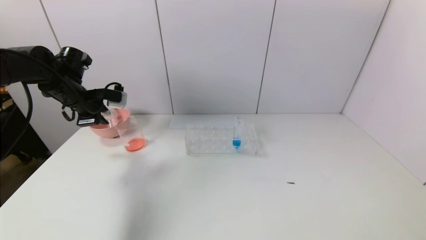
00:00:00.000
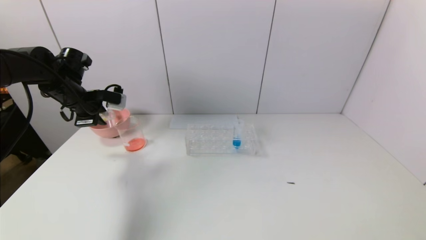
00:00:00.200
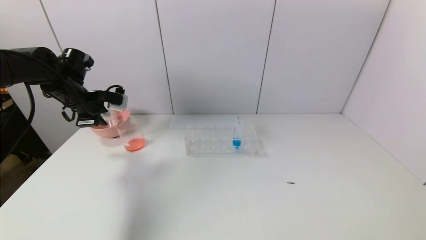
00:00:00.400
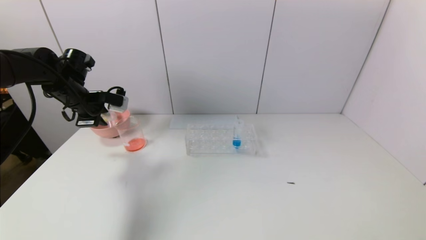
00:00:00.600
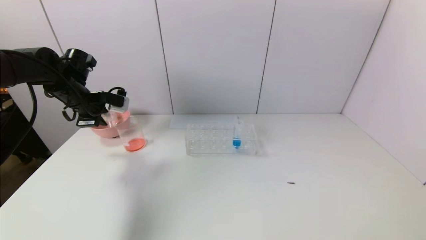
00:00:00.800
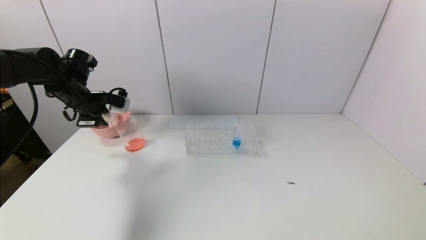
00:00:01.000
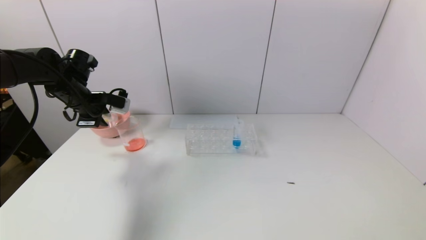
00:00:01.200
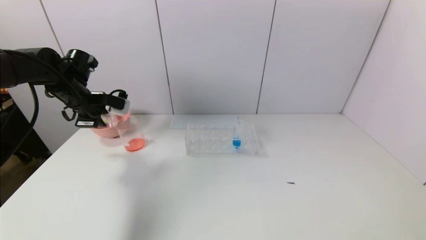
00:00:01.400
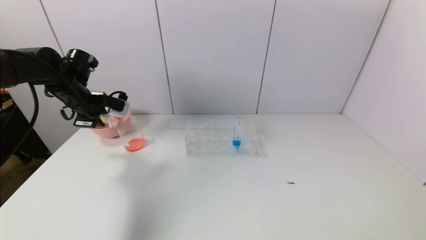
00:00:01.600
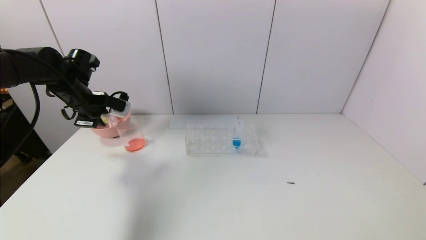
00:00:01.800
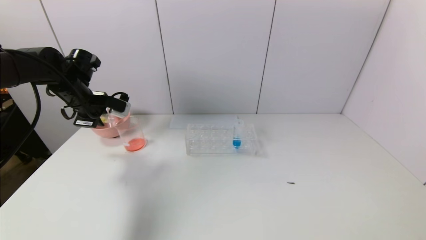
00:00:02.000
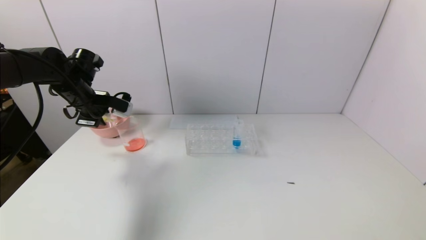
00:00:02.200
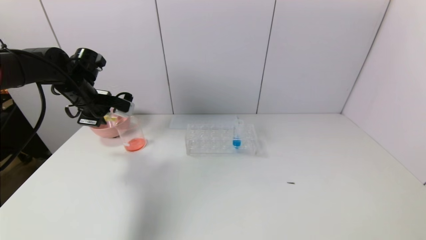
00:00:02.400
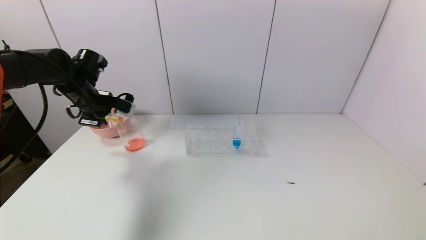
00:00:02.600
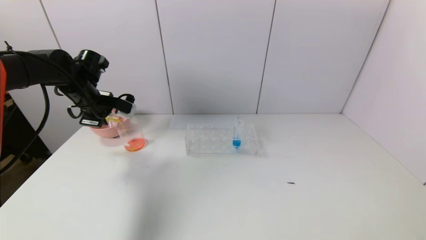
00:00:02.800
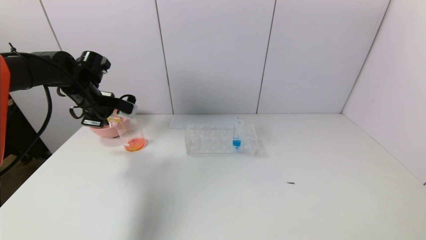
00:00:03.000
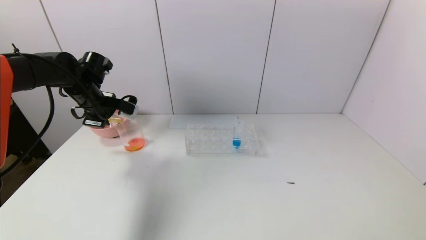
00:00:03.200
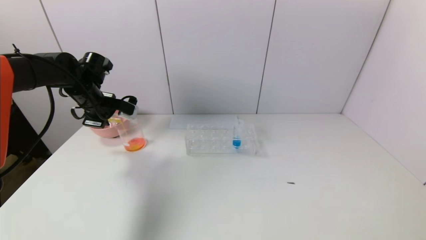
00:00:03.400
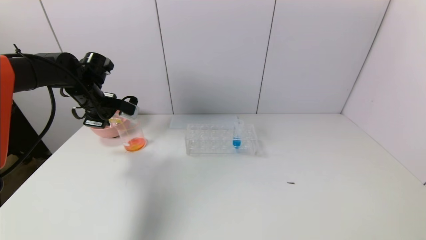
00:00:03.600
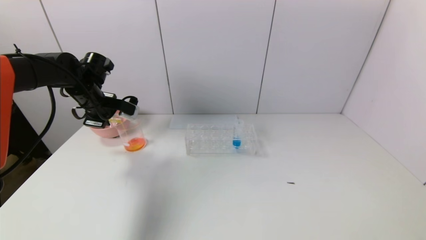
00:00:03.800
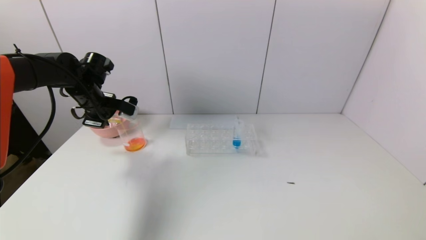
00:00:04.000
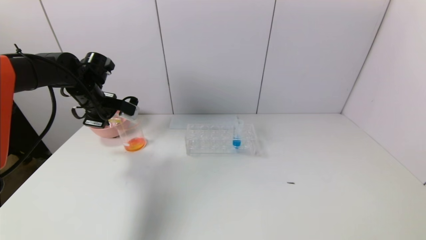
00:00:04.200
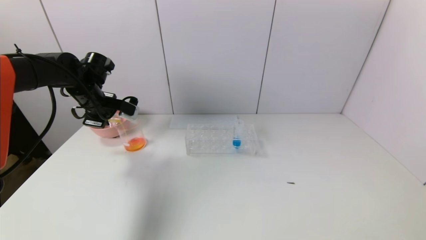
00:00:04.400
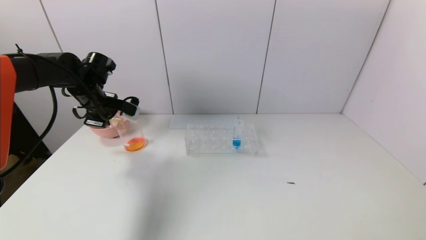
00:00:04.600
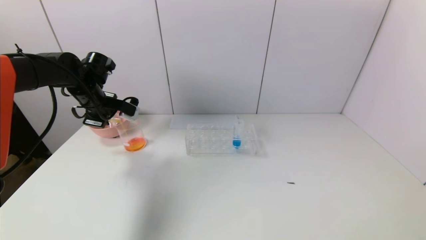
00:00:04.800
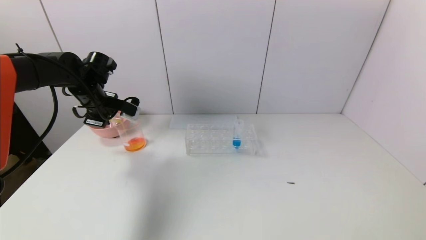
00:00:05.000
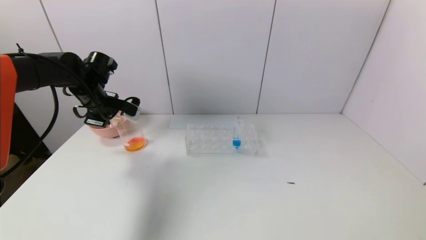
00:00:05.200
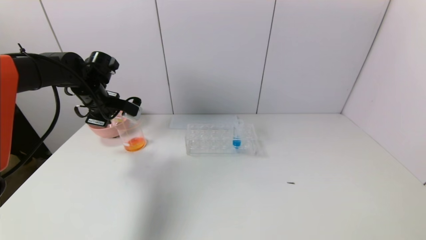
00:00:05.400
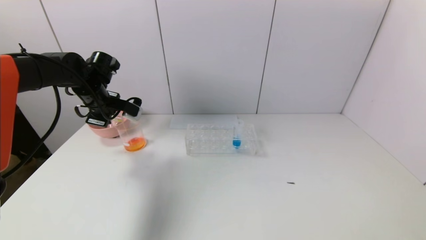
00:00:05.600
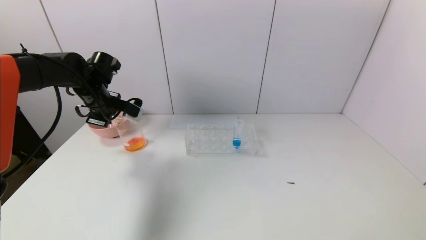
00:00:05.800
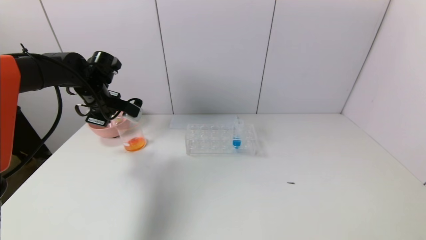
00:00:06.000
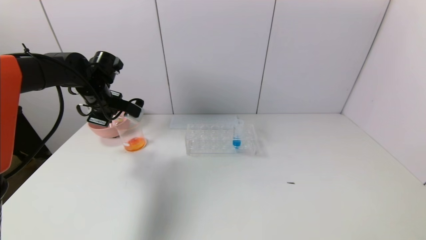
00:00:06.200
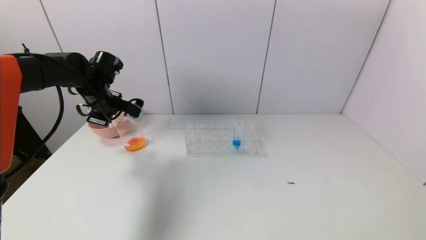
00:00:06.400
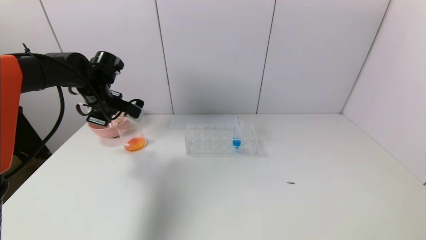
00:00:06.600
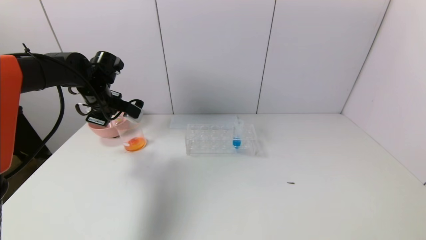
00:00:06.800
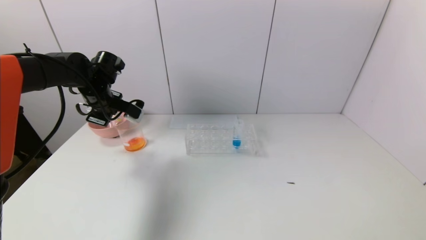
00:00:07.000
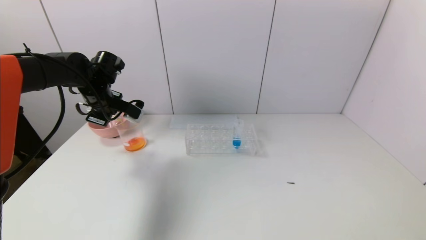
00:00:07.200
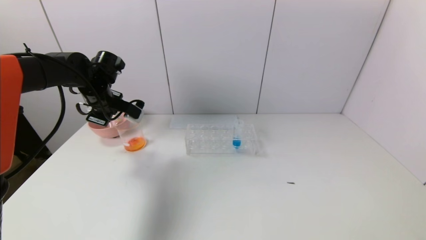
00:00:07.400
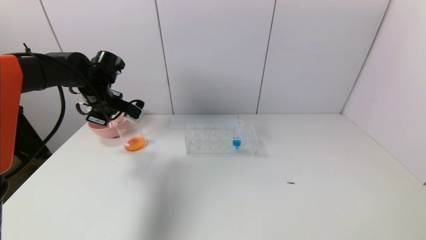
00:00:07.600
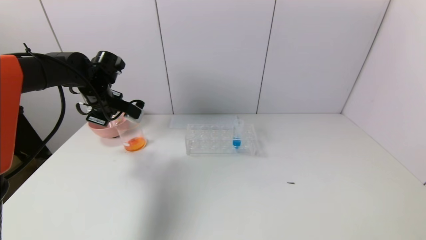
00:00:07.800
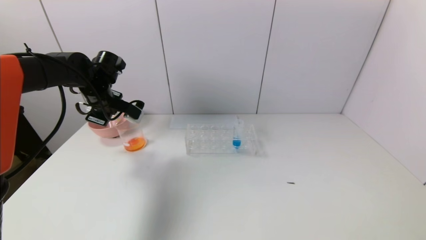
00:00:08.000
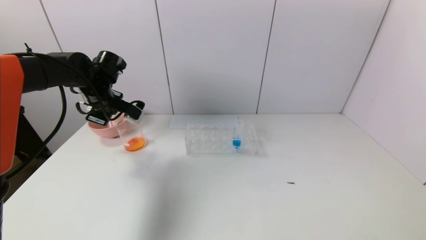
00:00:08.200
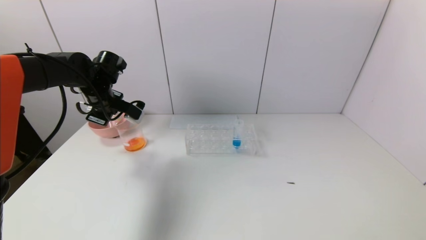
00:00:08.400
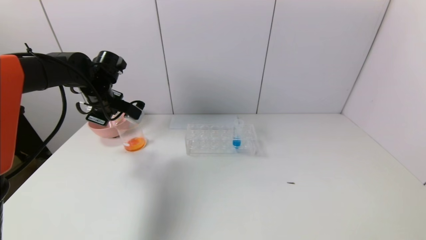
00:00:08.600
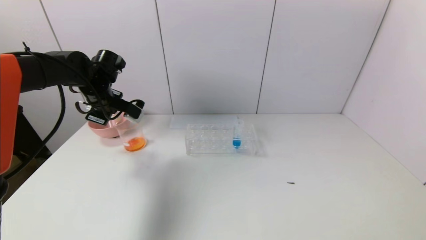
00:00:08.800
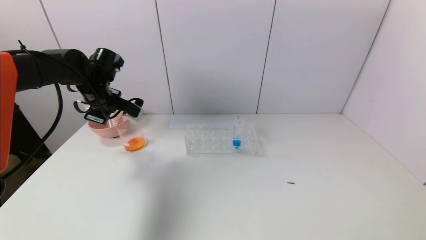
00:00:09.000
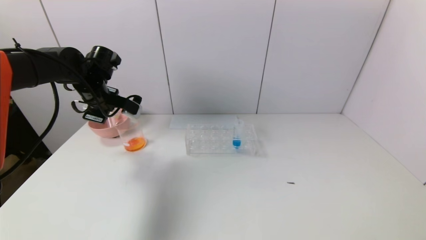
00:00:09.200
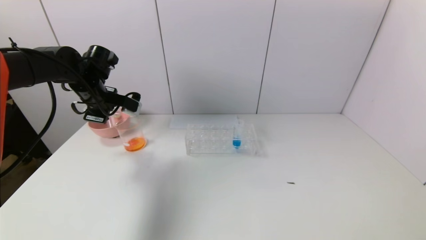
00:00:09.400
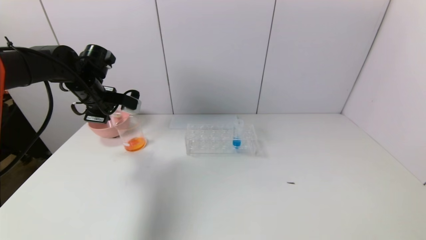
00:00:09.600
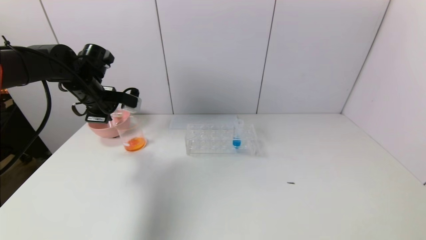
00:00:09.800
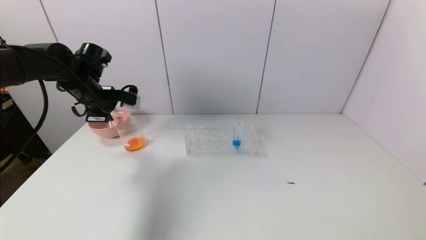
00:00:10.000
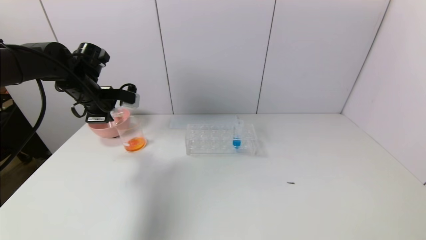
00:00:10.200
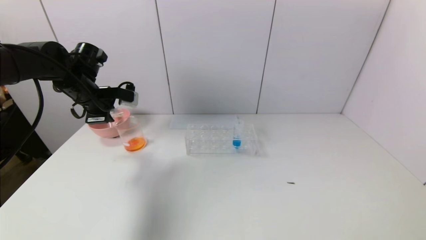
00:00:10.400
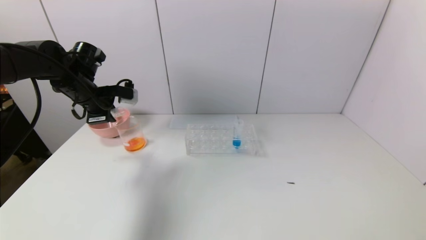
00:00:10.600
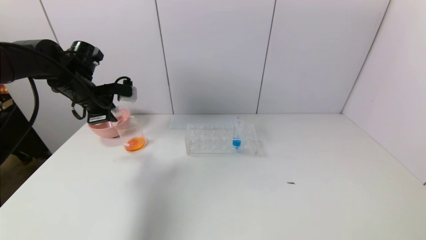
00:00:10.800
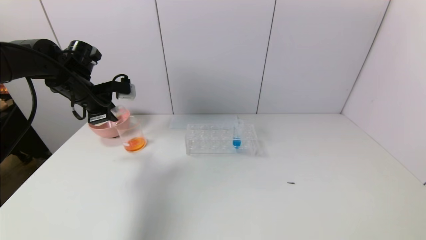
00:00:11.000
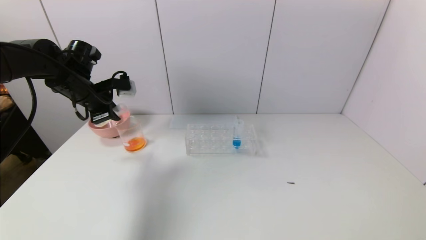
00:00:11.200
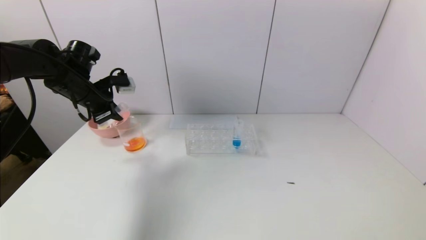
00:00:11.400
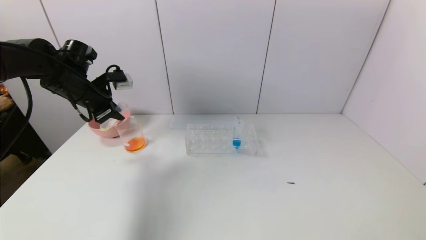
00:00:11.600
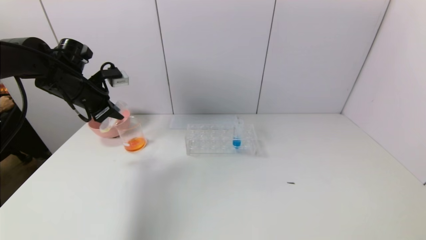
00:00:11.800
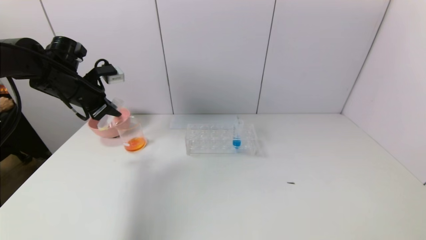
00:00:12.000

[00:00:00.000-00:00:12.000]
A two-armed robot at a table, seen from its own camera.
Task of the whole recording: pick up the test tube with yellow pigment and the test tube with red pigment by grippers and pour them into the beaker.
Step, 00:00:00.000 to 00:00:09.200: Pour the yellow reagent into the graduated cylinder with the left gripper.
00:00:00.000 to 00:00:03.000: The grippers stay close to where they were, moving slightly.
00:00:03.000 to 00:00:04.400: Both grippers stay about where they are.
00:00:04.400 to 00:00:06.000: The grippers move only a little.
00:00:06.000 to 00:00:07.600: The two grippers keep their place.
00:00:07.600 to 00:00:09.000: Neither gripper changes place.

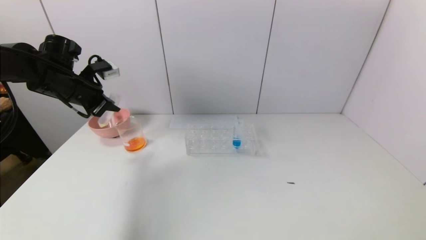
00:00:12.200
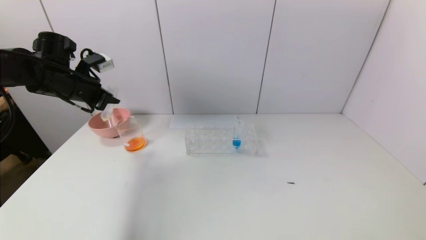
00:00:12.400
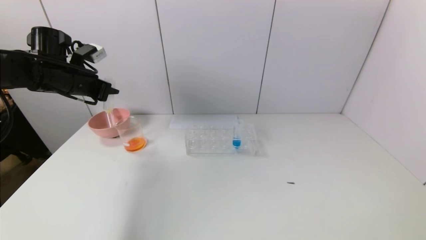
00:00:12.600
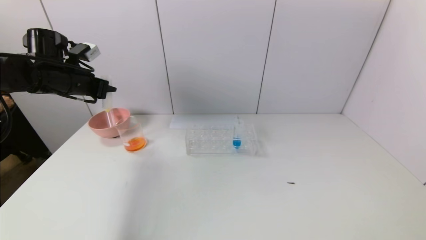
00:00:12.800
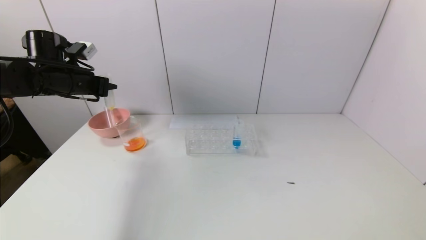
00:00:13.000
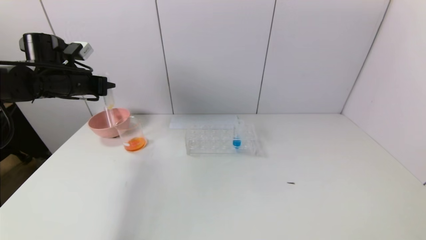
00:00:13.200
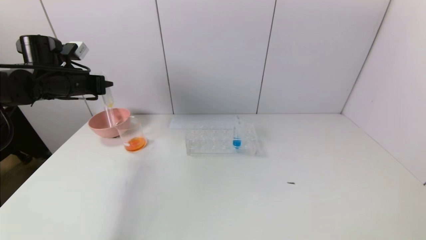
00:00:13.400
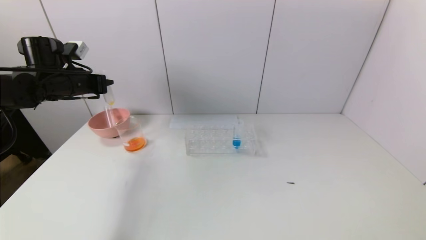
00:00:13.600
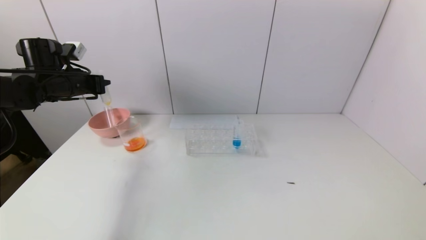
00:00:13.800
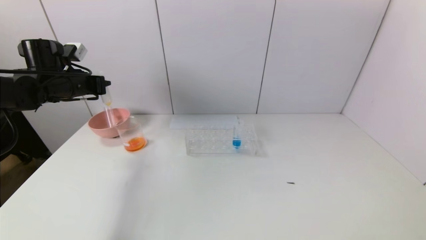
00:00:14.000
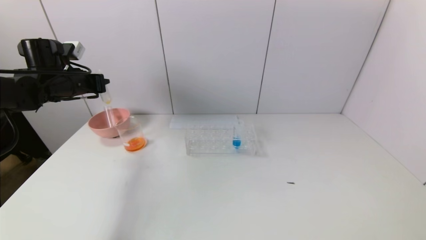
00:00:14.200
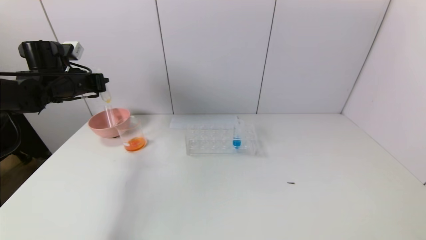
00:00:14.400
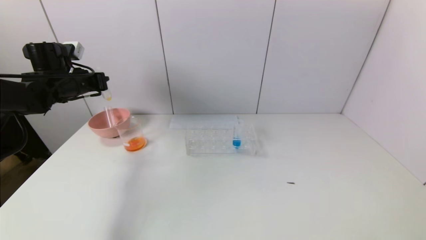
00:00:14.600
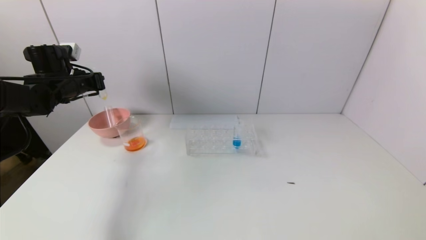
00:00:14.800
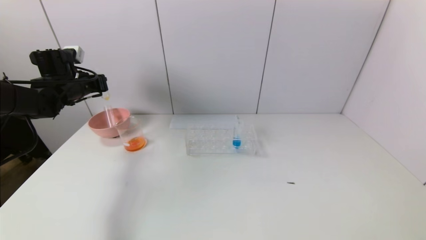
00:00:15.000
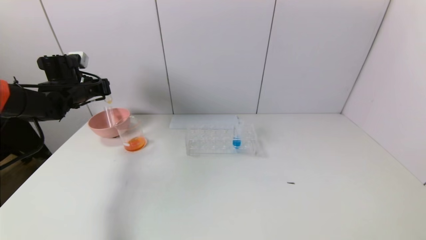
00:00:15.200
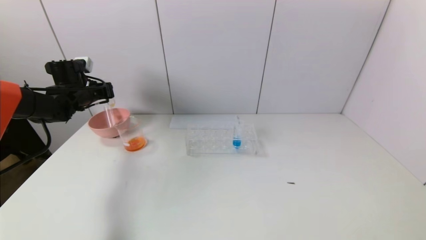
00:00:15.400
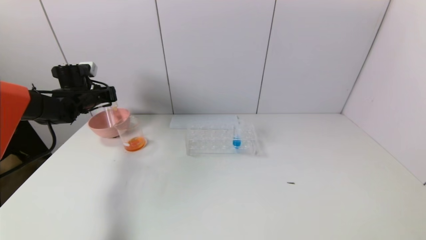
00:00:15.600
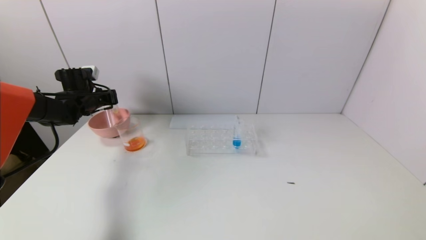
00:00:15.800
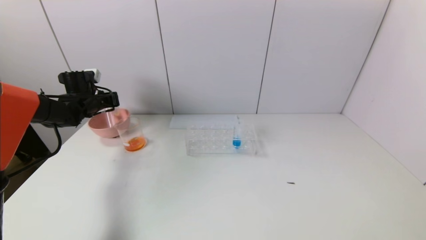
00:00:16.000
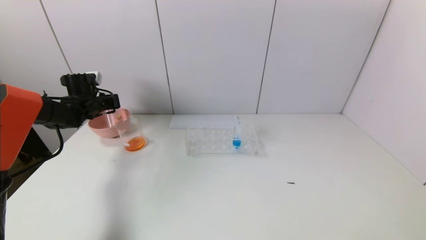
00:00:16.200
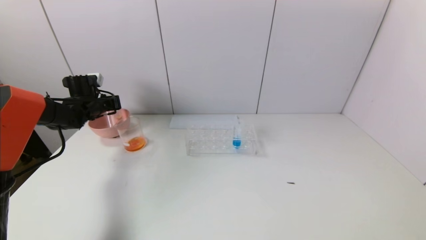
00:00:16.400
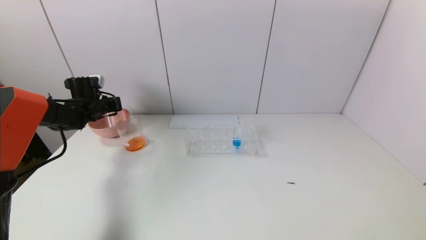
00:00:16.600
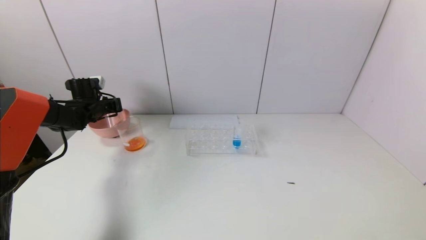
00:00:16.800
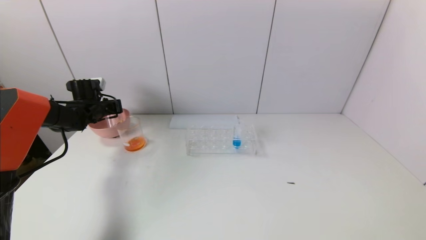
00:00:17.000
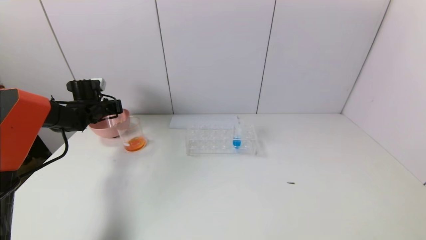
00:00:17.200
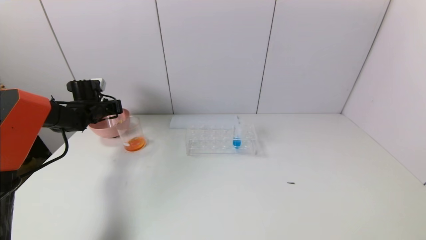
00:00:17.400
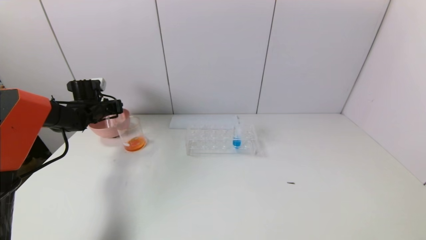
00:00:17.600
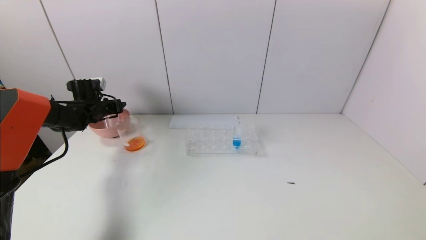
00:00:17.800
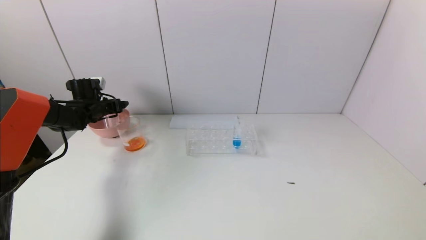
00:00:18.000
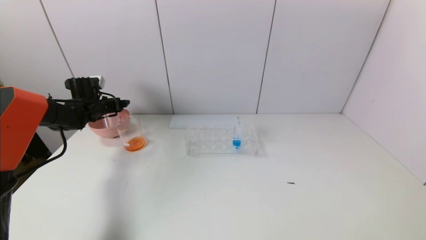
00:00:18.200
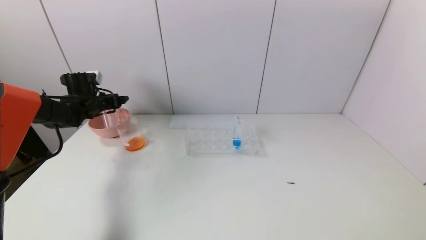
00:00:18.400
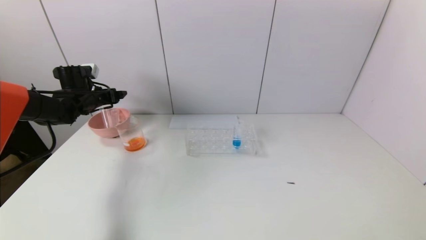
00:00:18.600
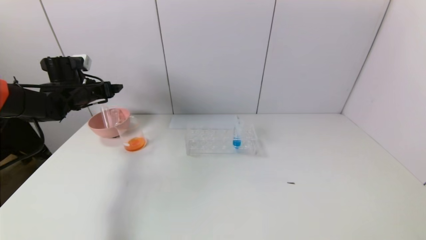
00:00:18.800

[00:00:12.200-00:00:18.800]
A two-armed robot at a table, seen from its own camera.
Task of the whole recording: pick up the test tube with yellow pigment and the test tube with red pigment by grippers and pour them into the beaker.
Step, 00:00:12.200 to 00:00:17.800: Place the test tube into the pink bowl with the left gripper.
00:00:13.800 to 00:00:15.400: The left gripper shifts approximately 10 cm forward and downward.
00:00:15.400 to 00:00:17.200: The left gripper moves downward, approximately 5 cm.
00:00:17.200 to 00:00:18.800: The left gripper travels upward and backward by approximately 10 cm, and opens up.
